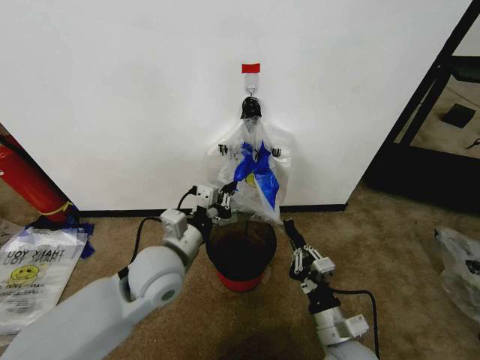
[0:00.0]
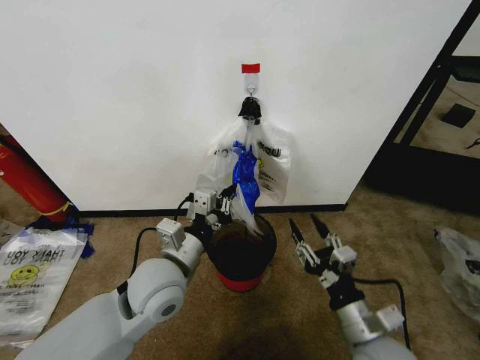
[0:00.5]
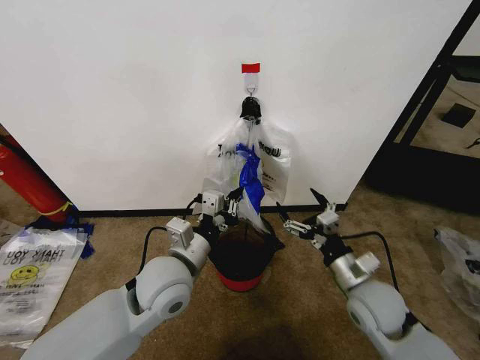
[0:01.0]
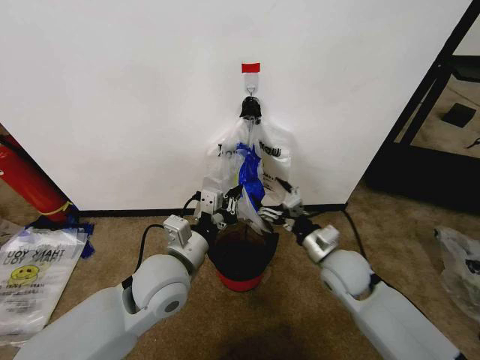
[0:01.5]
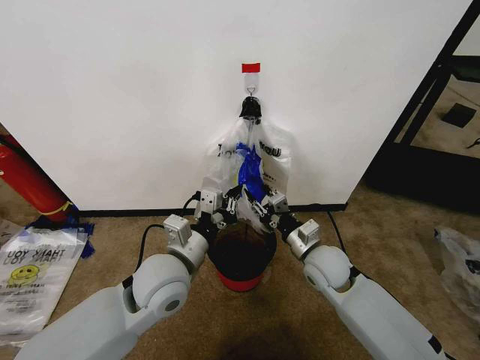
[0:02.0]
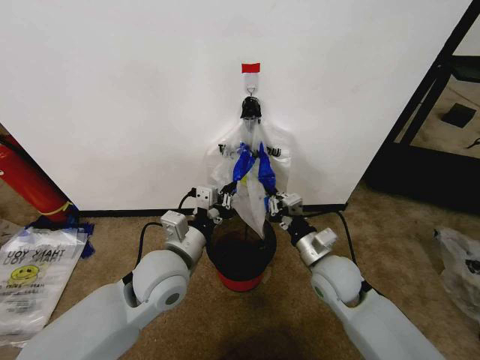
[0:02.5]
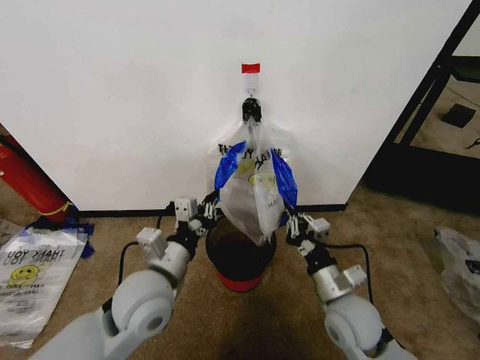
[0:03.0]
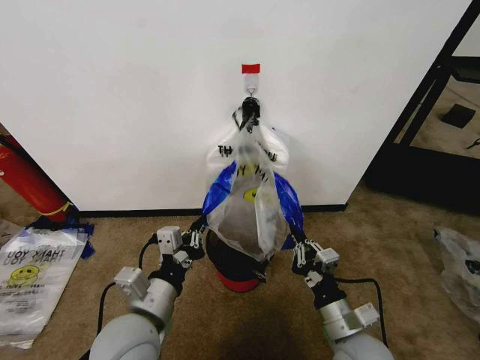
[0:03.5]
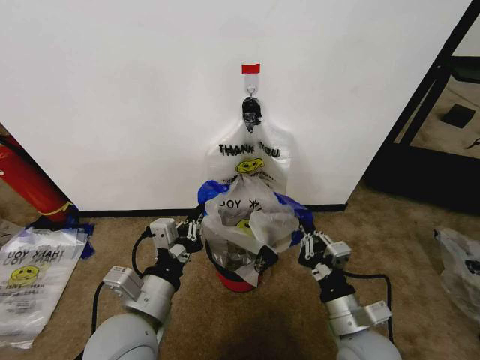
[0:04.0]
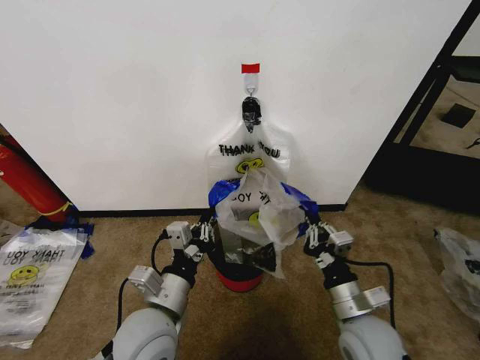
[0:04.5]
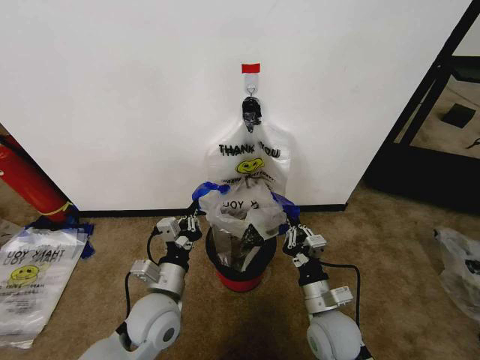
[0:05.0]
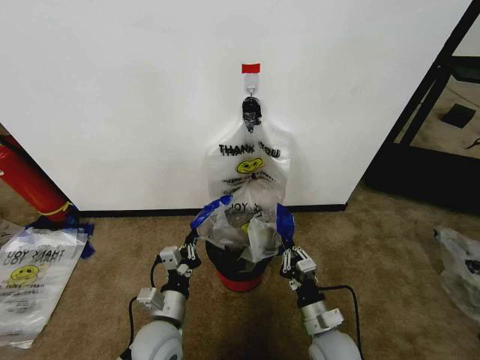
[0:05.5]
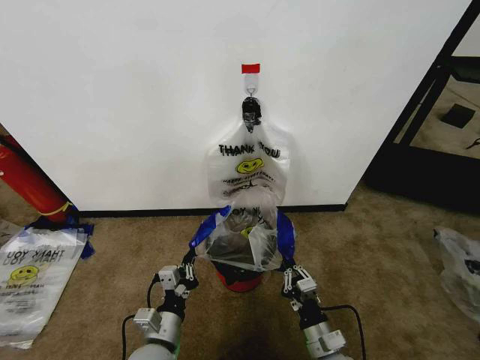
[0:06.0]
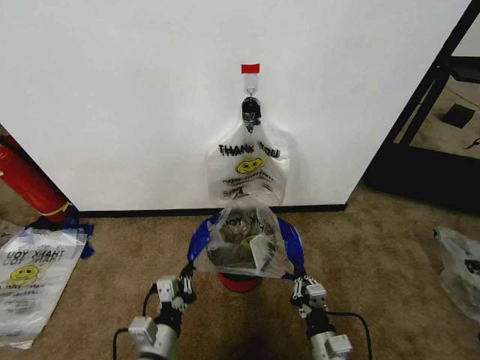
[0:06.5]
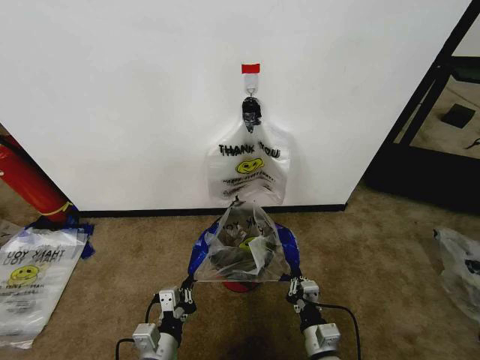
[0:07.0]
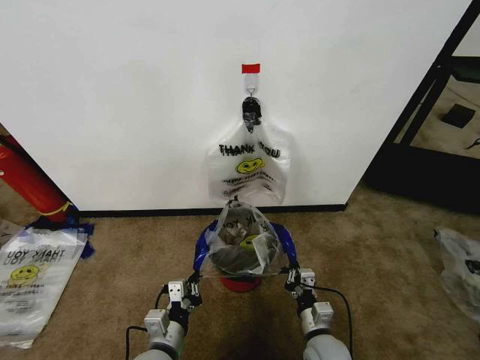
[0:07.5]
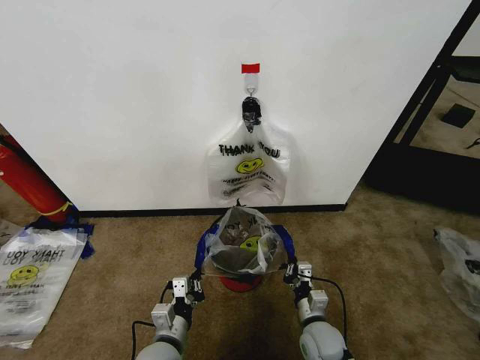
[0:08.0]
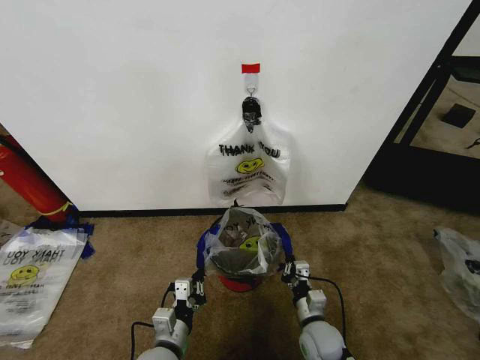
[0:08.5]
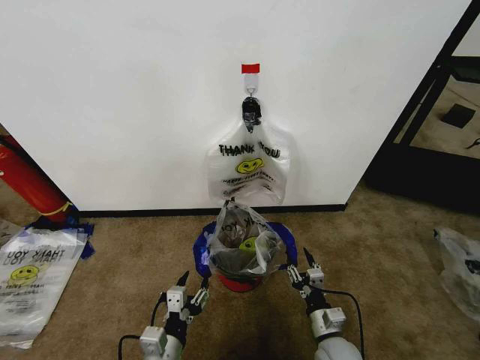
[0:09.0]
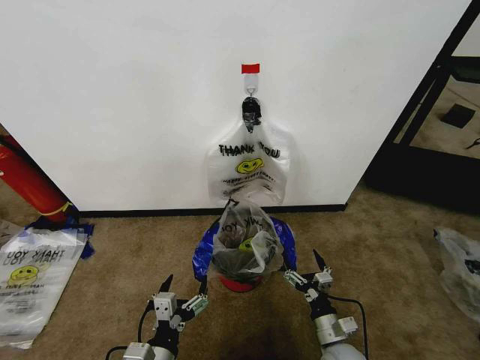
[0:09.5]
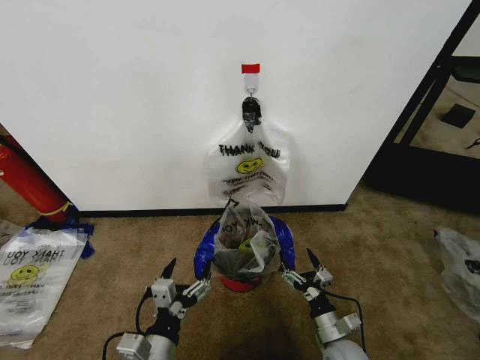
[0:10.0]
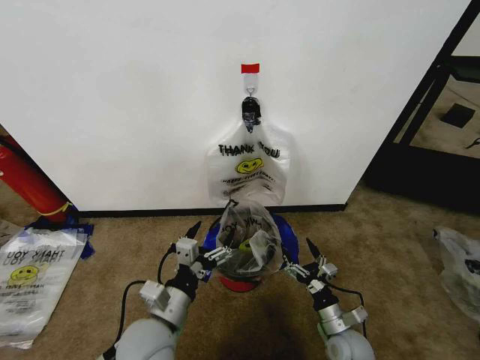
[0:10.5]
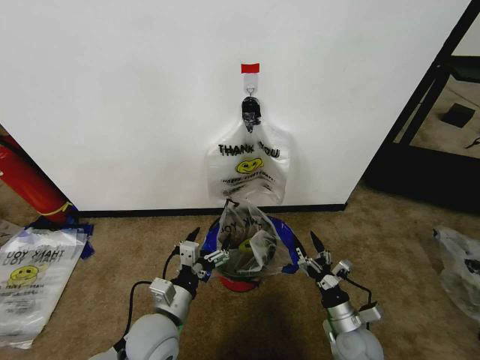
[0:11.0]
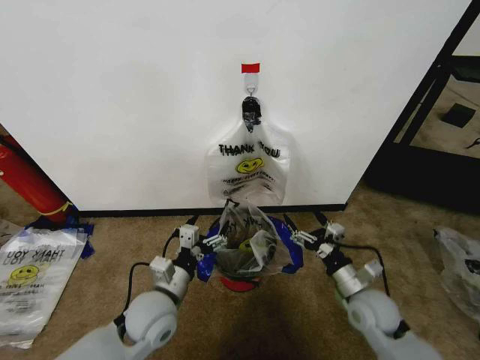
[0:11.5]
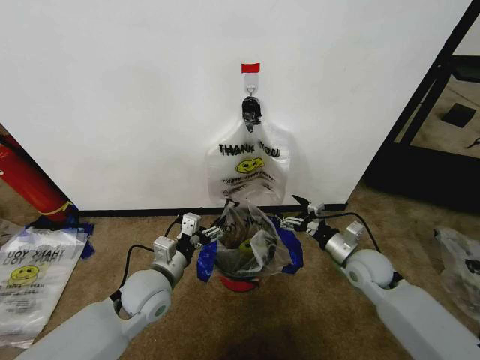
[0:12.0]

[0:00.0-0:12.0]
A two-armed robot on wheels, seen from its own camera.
Task of the whole recording: Pick up the garbage bag from the wall and place it over the trash bin.
0:00.0 to 0:02.0: The right gripper heads forward, covering some 20 cm, and opens its fingers.
0:02.0 to 0:04.0: The left gripper moves backward, roughly 10 cm; the right gripper shifts roughly 15 cm backward, and closes.
0:04.0 to 0:06.0: Both grippers move downward, roughly 15 cm.
0:06.0 to 0:08.0: The right gripper shifts about 5 cm forward.
0:08.0 to 0:10.0: The left gripper heads upward and backward, covering some 10 cm, and opens its fingers; the right gripper shifts roughly 5 cm to the right, and opens.
0:10.0 to 0:12.0: The right gripper goes about 20 cm forward and upward. The left gripper is displaced forward by roughly 15 cm.

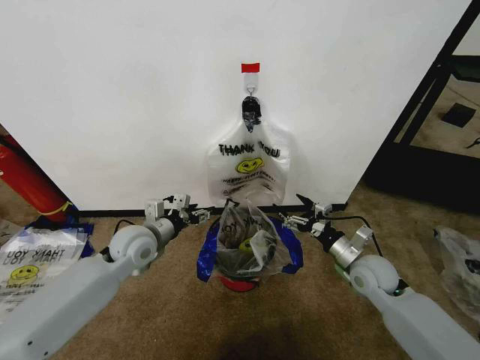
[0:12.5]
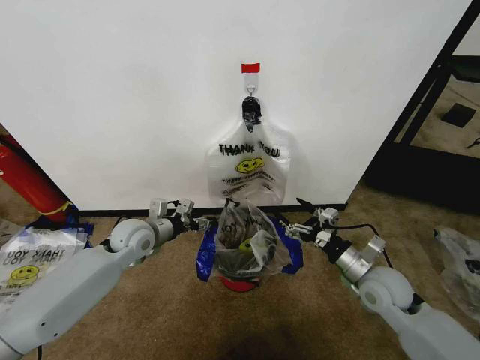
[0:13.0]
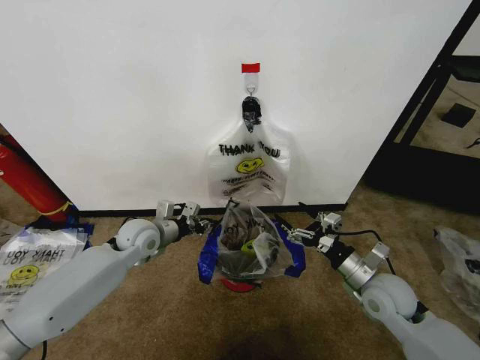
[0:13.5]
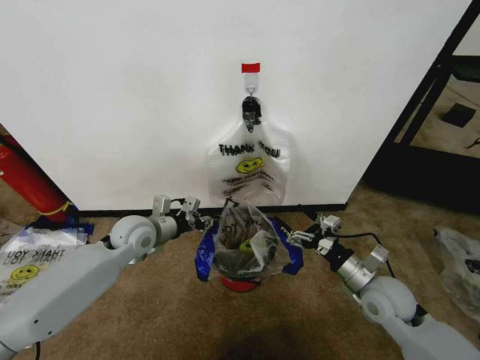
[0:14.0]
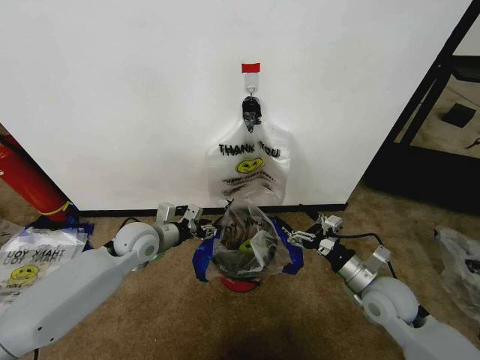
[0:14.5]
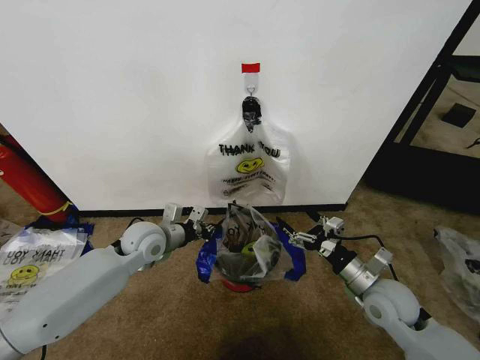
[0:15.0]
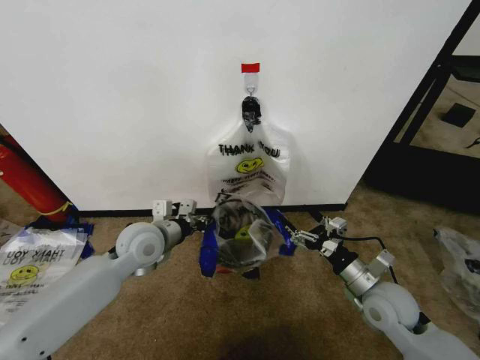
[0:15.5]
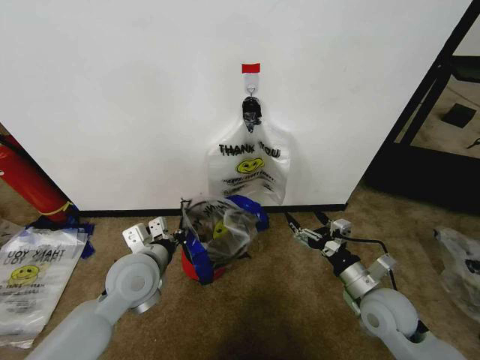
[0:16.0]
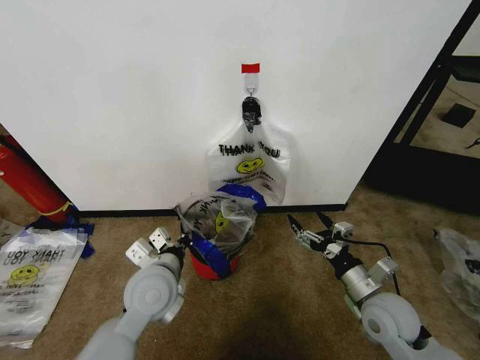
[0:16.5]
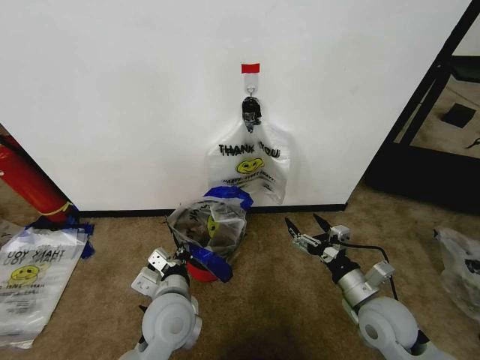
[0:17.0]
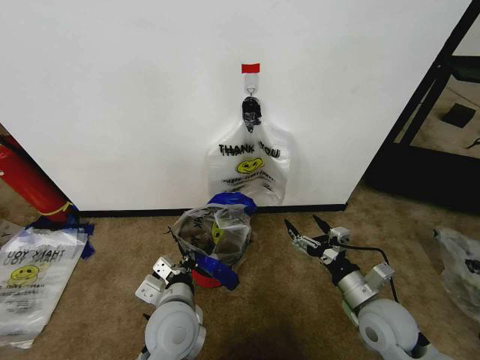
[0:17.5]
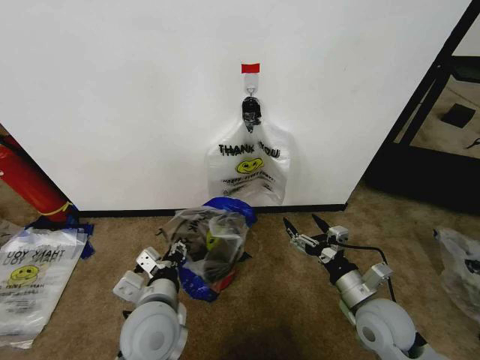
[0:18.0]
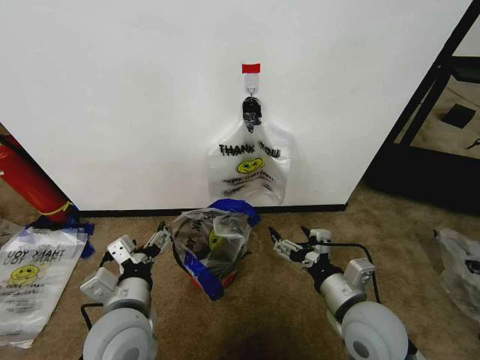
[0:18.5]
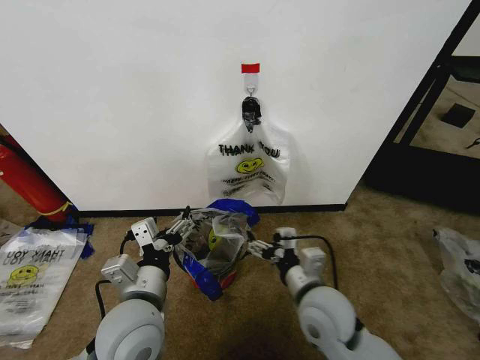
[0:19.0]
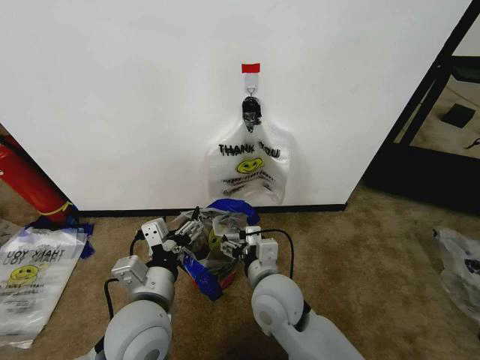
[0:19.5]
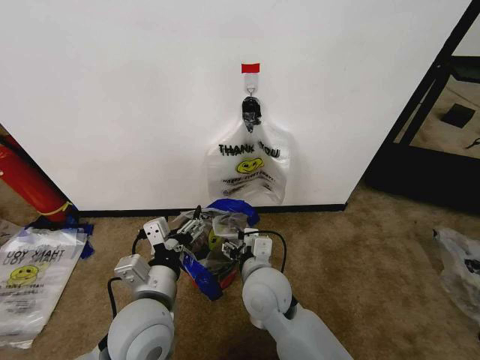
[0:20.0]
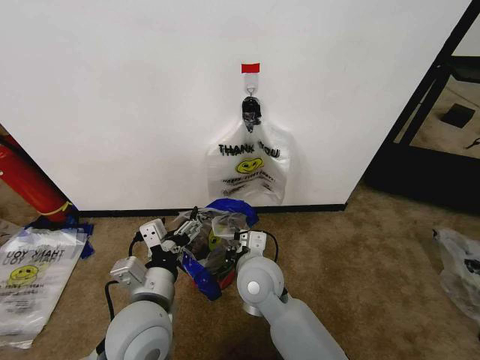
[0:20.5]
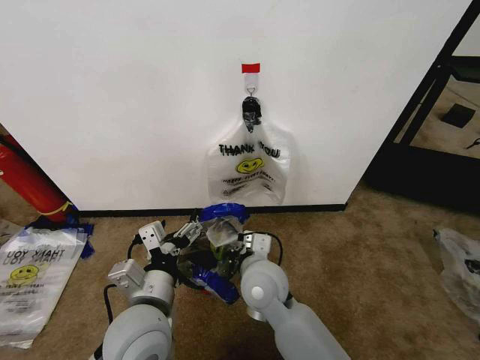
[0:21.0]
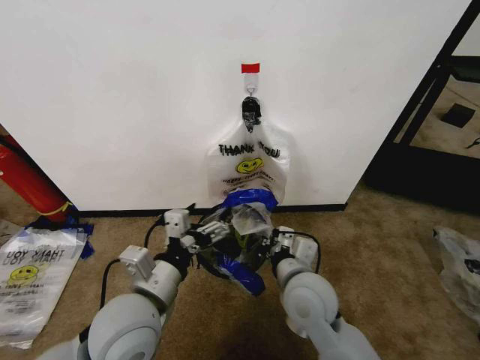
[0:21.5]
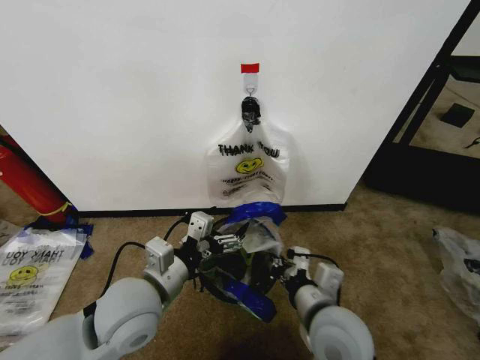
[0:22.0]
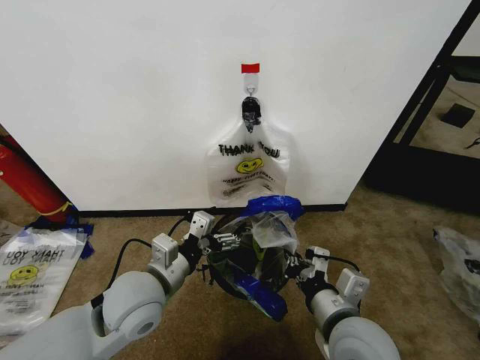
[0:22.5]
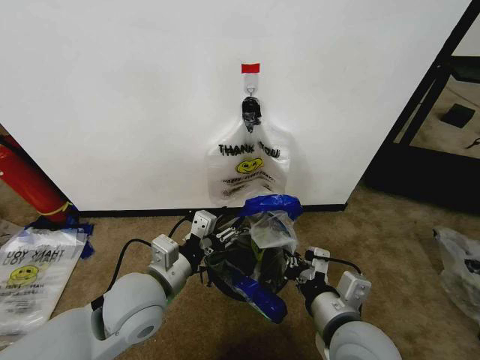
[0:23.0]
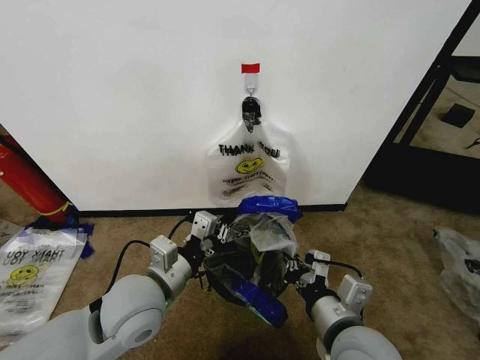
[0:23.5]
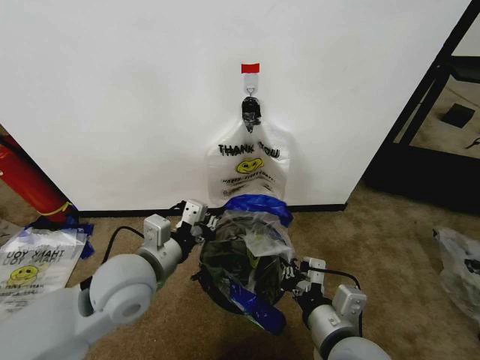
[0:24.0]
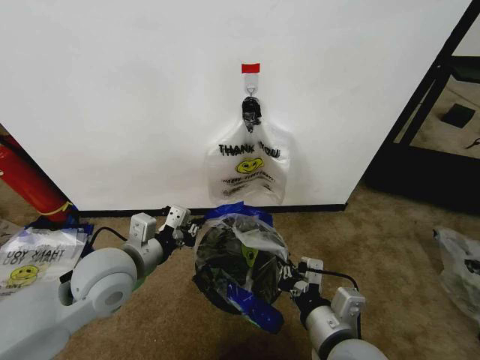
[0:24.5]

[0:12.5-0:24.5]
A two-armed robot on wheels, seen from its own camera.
Task of the whole recording: Pick up the garbage bag from the wall and place it over the trash bin.
0:12.5 to 0:14.5: The left gripper closes and opens again, while the right gripper shifts roughly 5 cm backward.
0:14.5 to 0:16.5: The left gripper travels backward and to the right by roughly 15 cm, and closes.
0:16.5 to 0:18.5: The right gripper moves to the left and upward, some 10 cm. The left gripper is displaced backward by some 10 cm, and opens.
0:18.5 to 0:20.5: The right gripper is displaced to the left and forward by approximately 20 cm, and closes.
0:20.5 to 0:22.5: The left gripper moves about 5 cm; the right gripper is displaced to the right and backward by approximately 20 cm.
0:22.5 to 0:24.5: The left gripper shifts by approximately 5 cm, and closes its fingers.

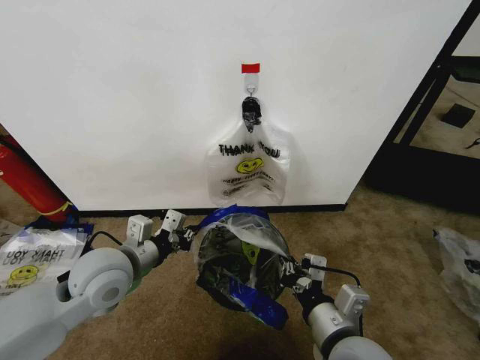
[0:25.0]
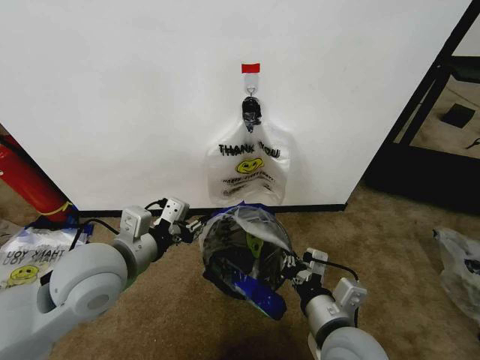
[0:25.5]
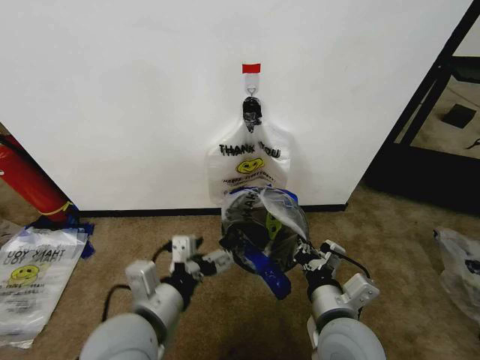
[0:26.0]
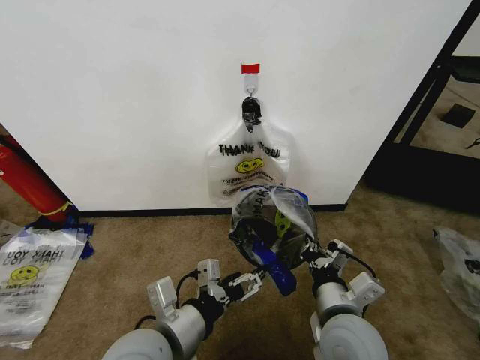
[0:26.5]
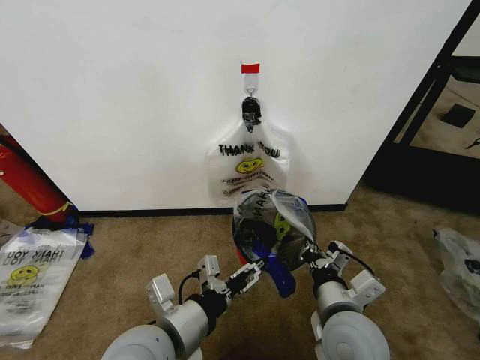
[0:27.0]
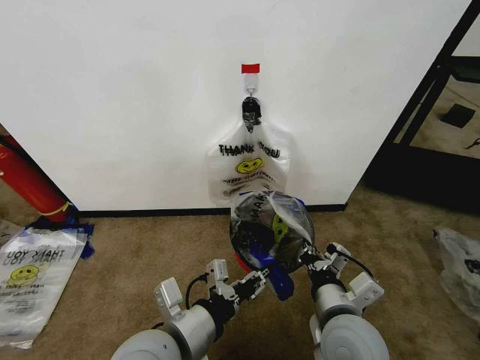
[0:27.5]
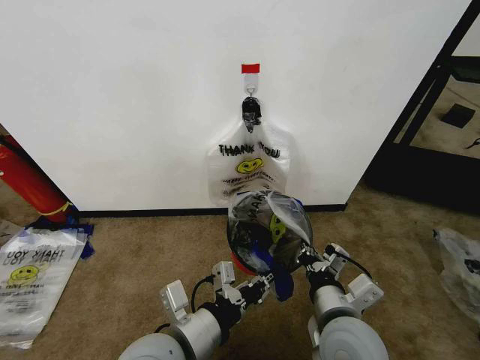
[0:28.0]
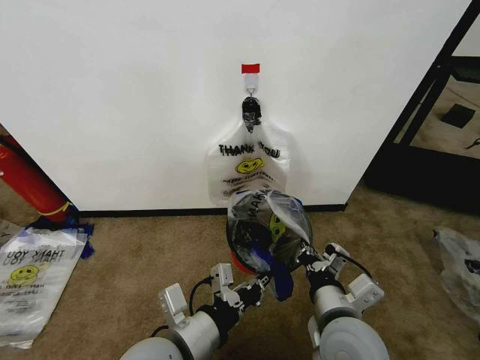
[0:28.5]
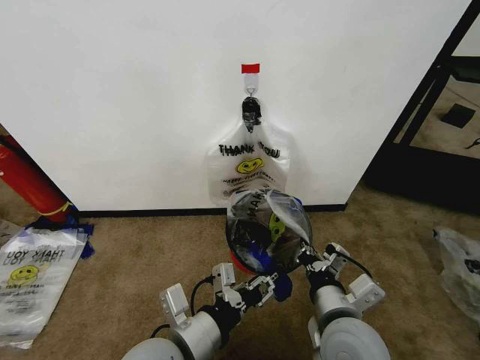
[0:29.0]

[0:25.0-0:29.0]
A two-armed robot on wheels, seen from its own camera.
Task of the whole recording: Pick up the garbage bag from the wall and place it over the trash bin.
0:25.0 to 0:27.0: The left gripper travels backward and to the right by approximately 15 cm, and opens its fingers.
0:27.0 to 0:29.0: The left gripper closes, then reopens.
